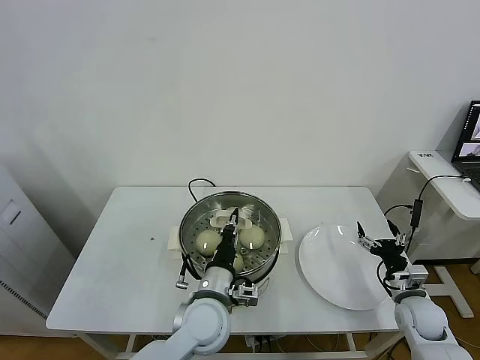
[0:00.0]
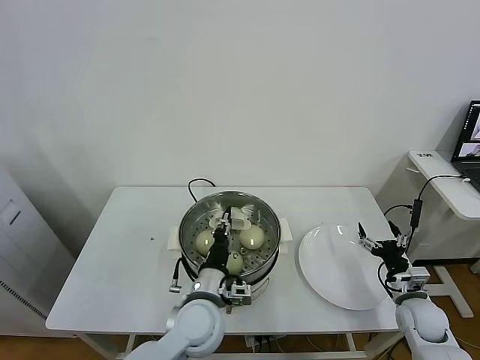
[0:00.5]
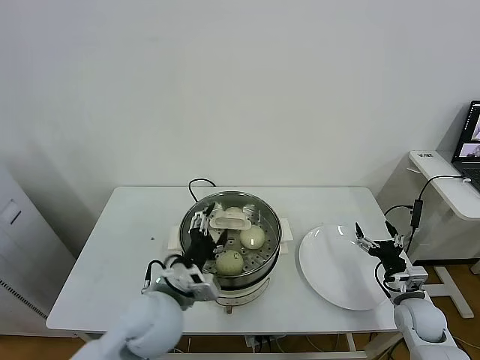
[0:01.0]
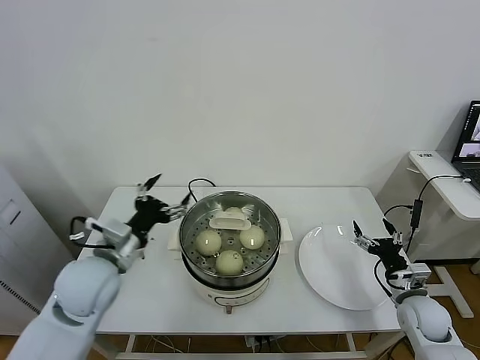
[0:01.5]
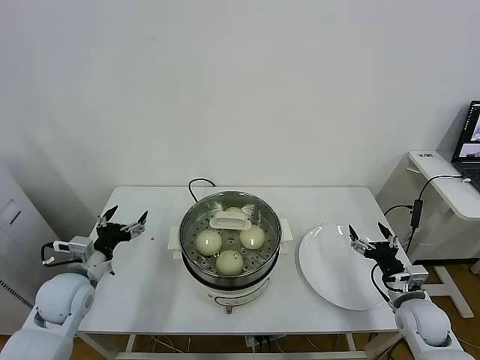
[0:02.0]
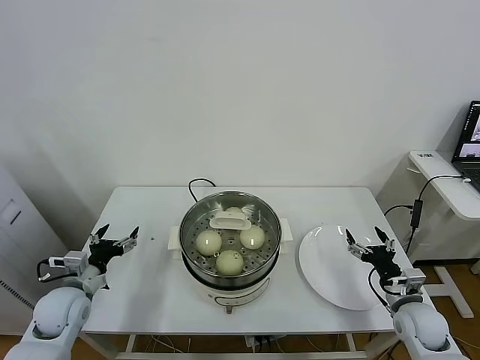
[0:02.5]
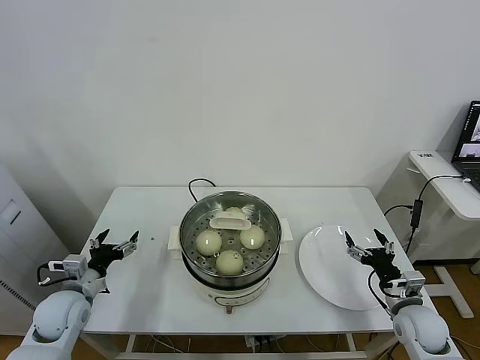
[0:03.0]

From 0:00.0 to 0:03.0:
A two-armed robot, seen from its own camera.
Task of the whole recording: take steamed baozi put them in steamer.
From 0:00.0 to 0:01.5: The left gripper goes roughly 20 cm to the left and upward, and opens its fingers.
From 0:01.5 to 0:03.0: The left gripper goes about 20 cm downward and to the left.
